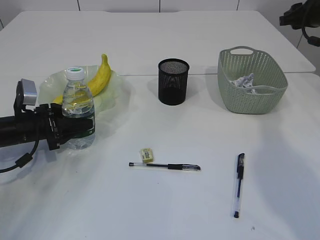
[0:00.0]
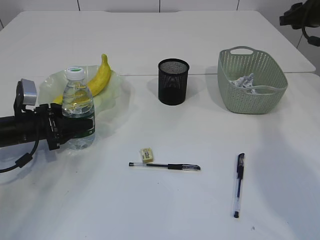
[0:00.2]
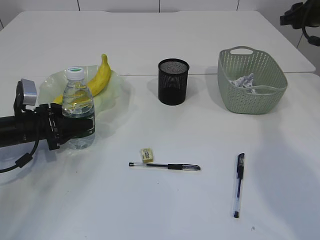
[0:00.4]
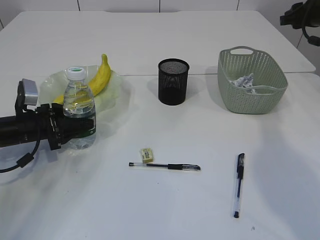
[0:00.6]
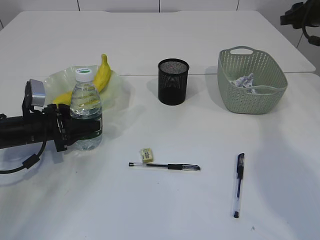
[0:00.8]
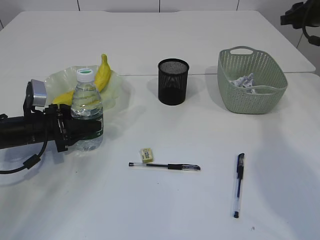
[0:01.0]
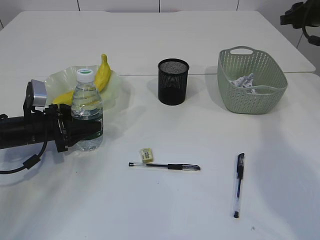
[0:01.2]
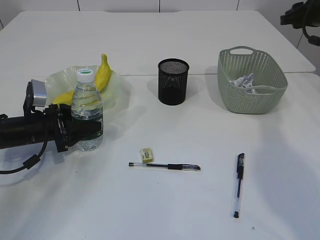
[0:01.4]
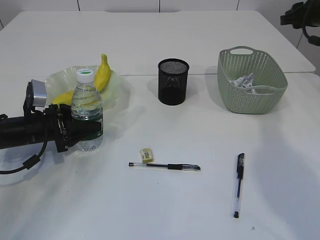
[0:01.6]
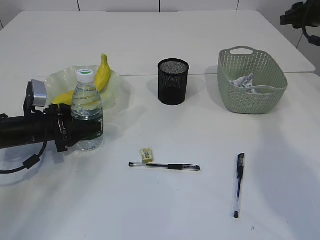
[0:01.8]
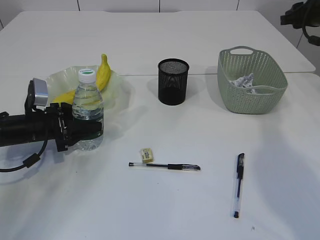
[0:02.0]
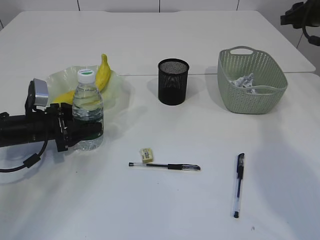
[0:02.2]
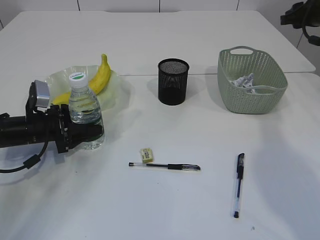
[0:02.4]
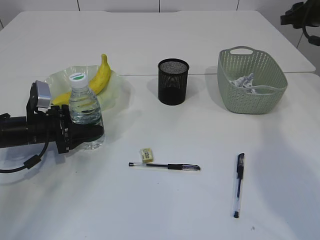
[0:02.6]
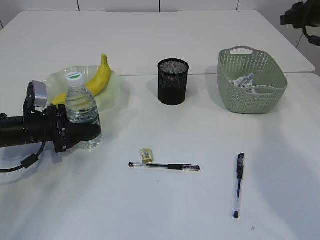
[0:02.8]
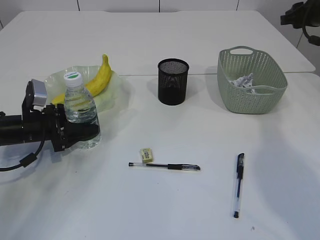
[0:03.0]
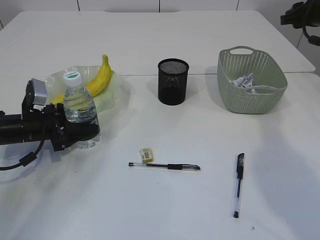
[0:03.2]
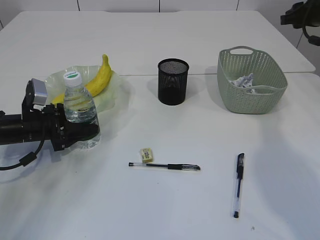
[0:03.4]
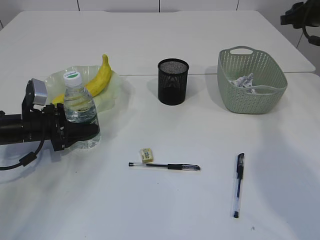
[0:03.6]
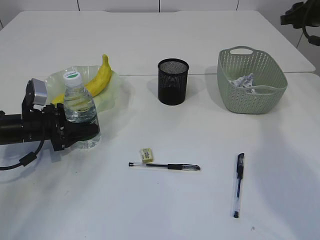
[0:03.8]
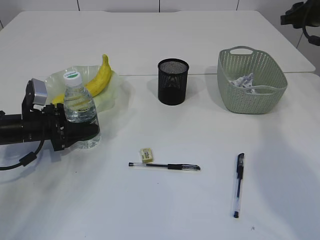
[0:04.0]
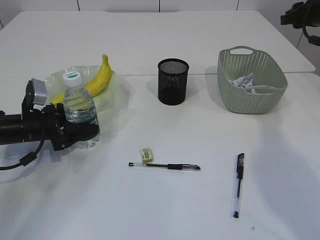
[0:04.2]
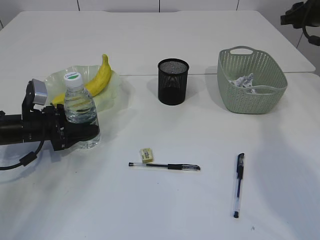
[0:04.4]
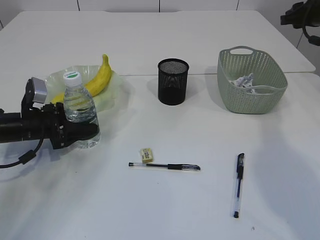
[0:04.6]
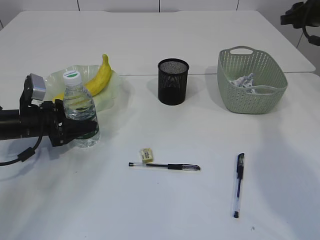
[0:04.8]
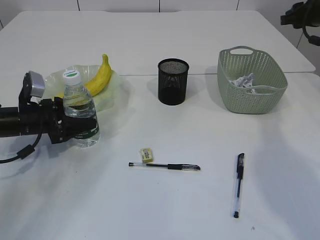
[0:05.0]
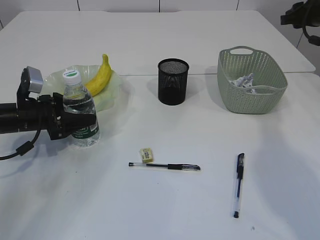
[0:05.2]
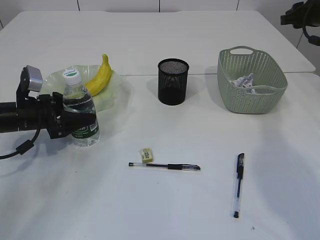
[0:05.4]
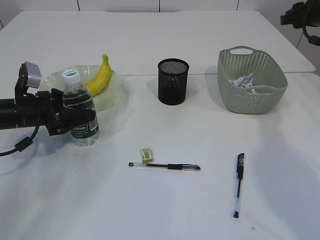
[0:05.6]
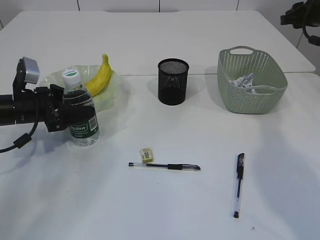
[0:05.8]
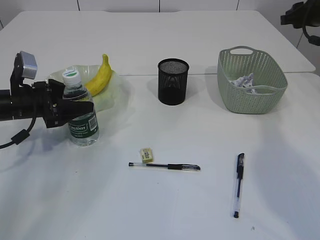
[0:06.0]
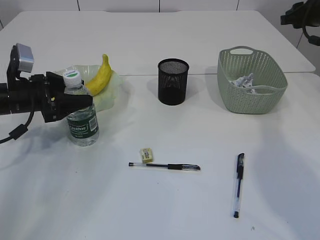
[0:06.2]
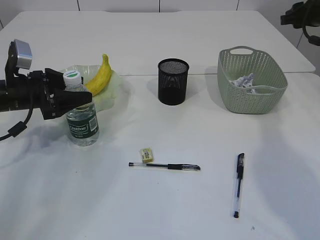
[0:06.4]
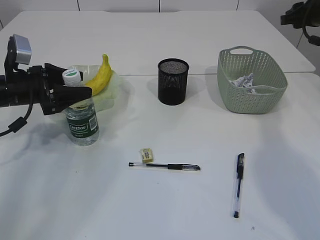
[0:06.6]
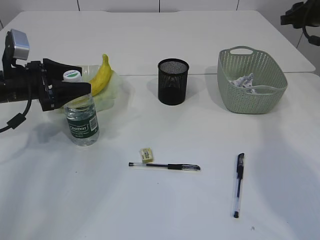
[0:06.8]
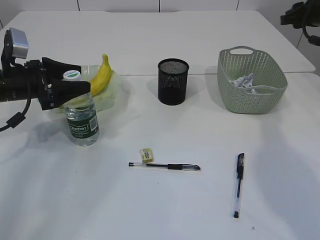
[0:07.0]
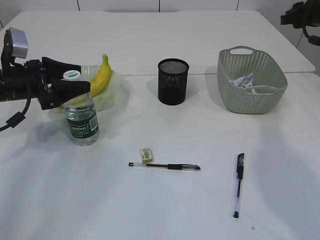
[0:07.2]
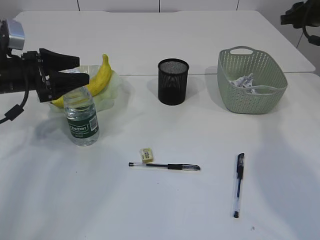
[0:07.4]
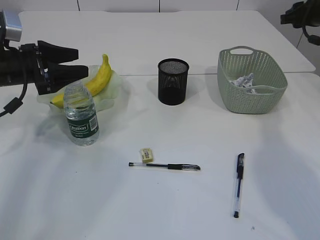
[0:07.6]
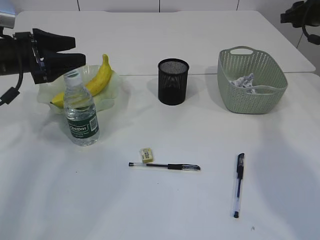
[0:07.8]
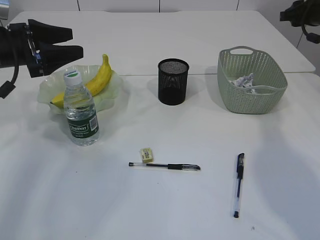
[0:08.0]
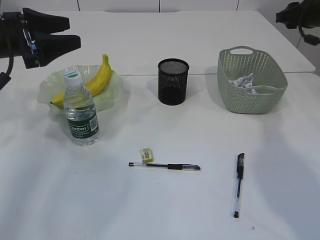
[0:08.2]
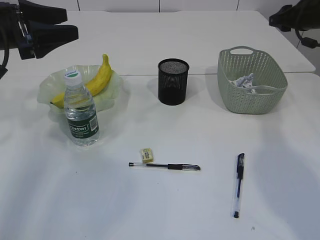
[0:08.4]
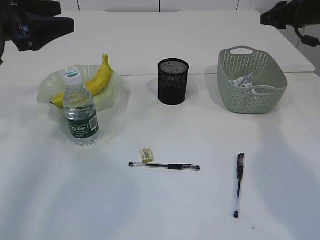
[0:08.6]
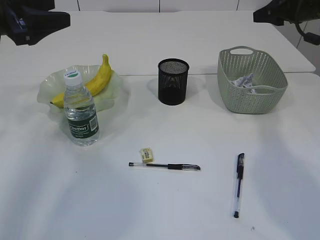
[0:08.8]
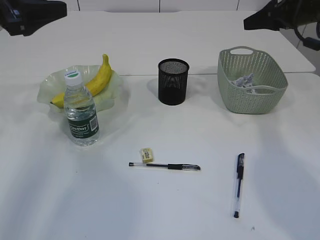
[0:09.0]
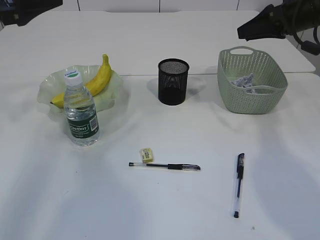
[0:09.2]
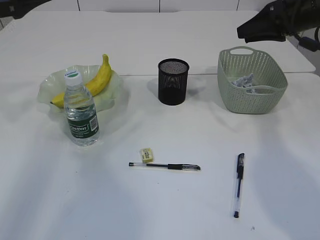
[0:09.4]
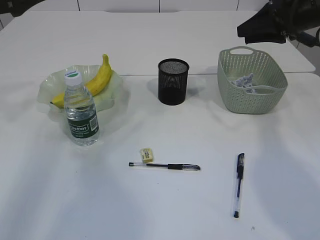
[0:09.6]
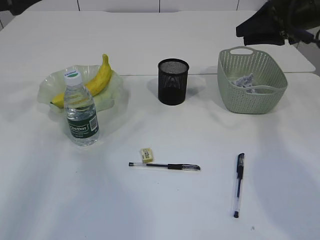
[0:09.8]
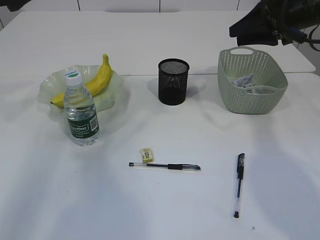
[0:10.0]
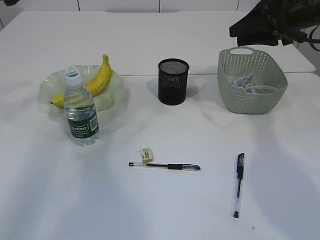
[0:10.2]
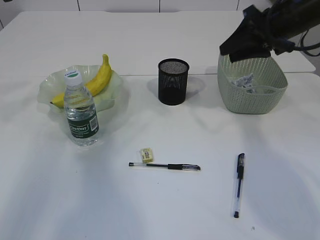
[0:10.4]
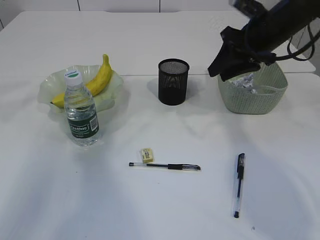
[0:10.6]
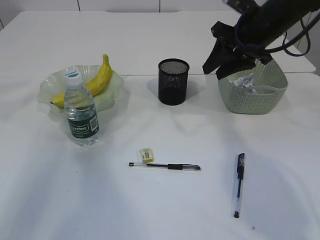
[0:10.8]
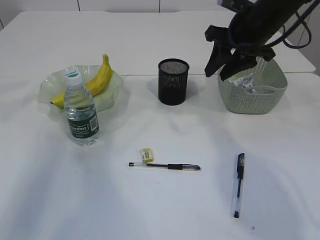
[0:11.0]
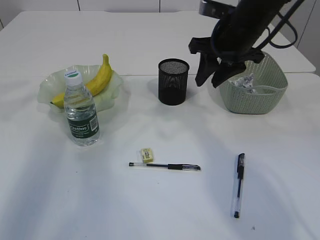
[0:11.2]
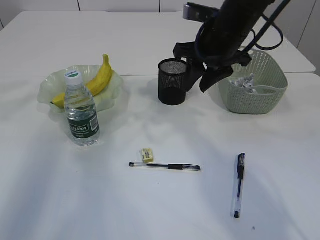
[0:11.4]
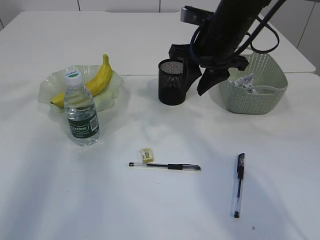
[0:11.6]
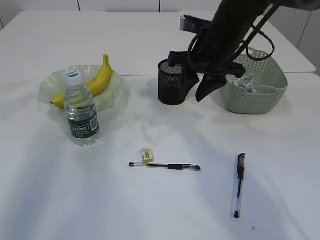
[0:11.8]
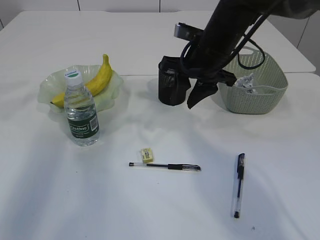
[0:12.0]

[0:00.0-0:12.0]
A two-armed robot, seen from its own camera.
Step, 0:00.0 to 0:07.8: Place the bottle.
0:00.0 to 0:01.6: There are only small adjustments of the grippers.
0:01.6 to 0:04.4: Both grippers stay put.
0:04.4 to 0:06.0: The left gripper is displaced upward by roughly 5 cm.
0:06.0 to 0:07.6: The left gripper moves upward, some 5 cm.
0:07.6 to 0:09.0: The left gripper shifts approximately 10 cm upward. Meanwhile the right gripper travels to the left by approximately 5 cm.
0:09.0 to 0:10.4: The left gripper moves upward, roughly 5 cm. Meanwhile the right gripper travels to the left by approximately 5 cm.
0:10.4 to 0:12.0: The right gripper heads to the left, covering some 15 cm.

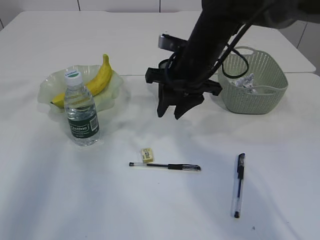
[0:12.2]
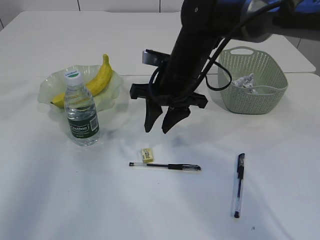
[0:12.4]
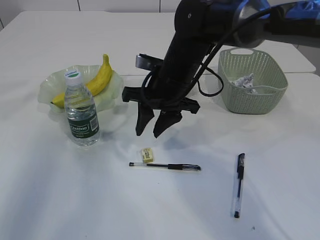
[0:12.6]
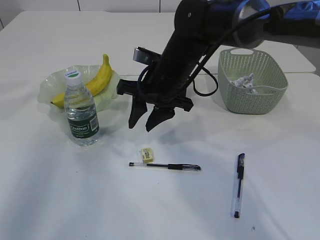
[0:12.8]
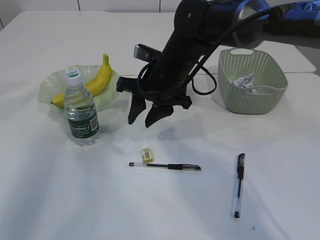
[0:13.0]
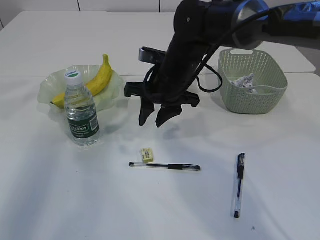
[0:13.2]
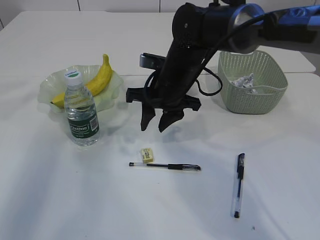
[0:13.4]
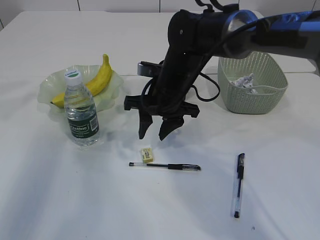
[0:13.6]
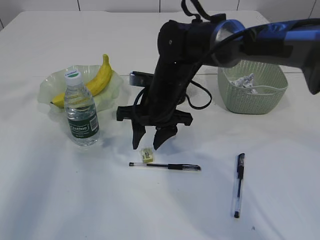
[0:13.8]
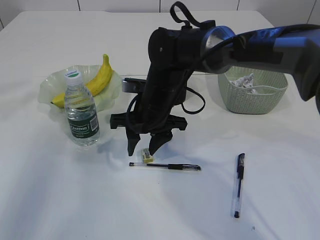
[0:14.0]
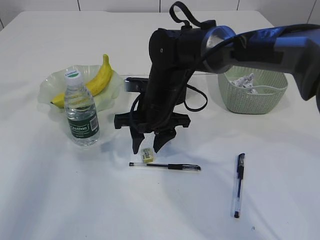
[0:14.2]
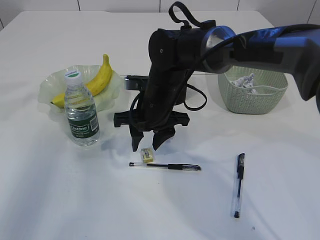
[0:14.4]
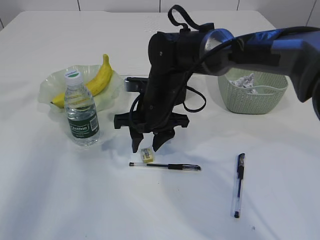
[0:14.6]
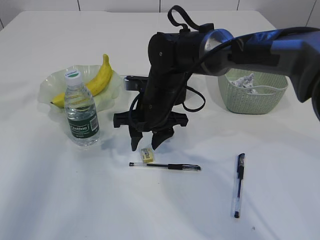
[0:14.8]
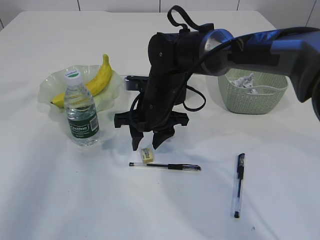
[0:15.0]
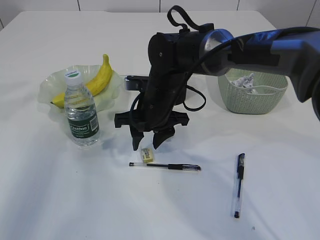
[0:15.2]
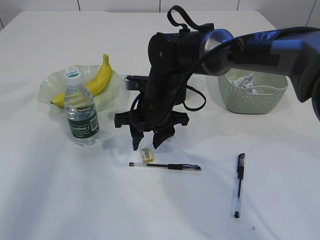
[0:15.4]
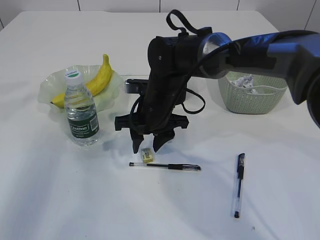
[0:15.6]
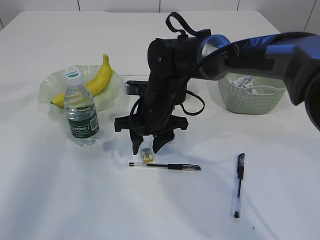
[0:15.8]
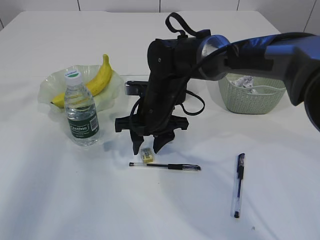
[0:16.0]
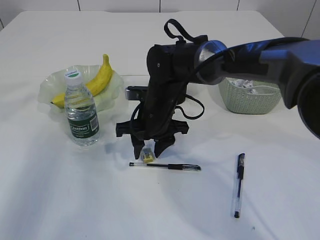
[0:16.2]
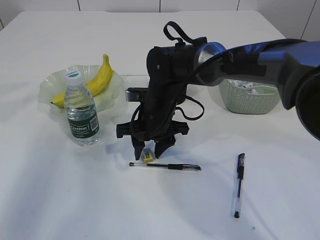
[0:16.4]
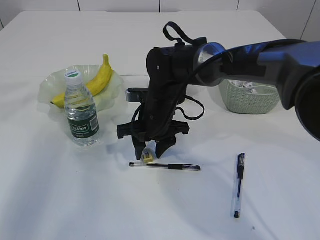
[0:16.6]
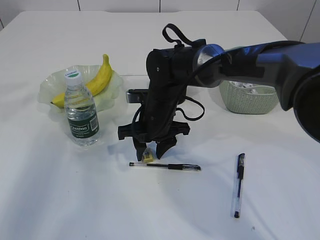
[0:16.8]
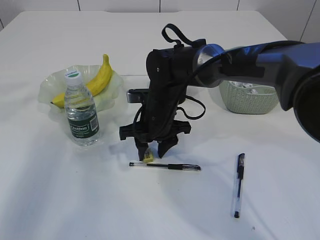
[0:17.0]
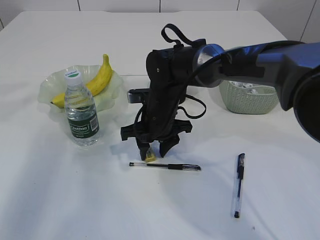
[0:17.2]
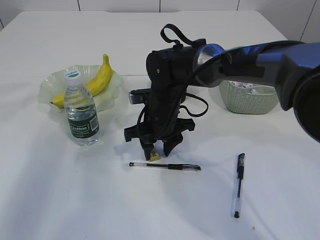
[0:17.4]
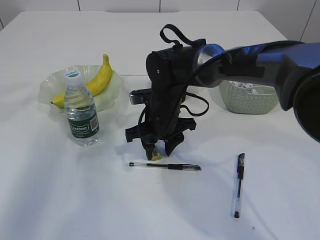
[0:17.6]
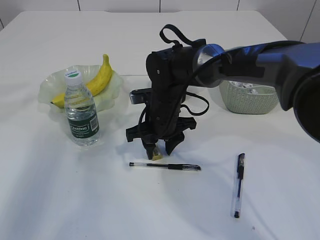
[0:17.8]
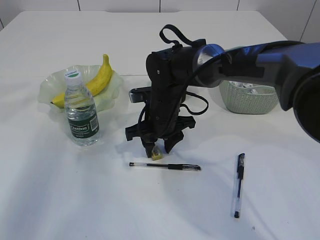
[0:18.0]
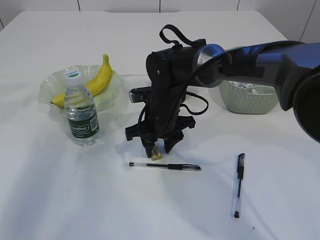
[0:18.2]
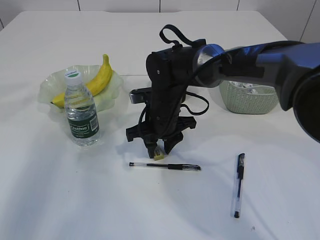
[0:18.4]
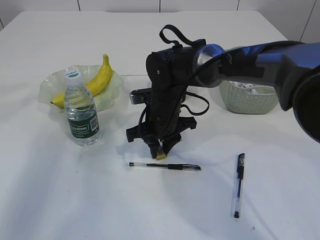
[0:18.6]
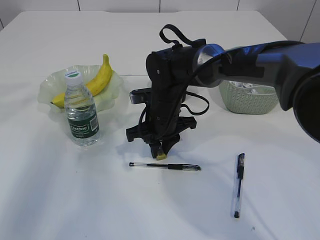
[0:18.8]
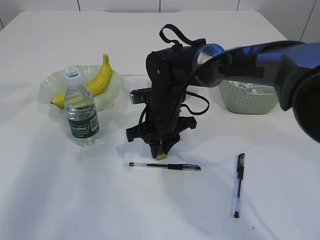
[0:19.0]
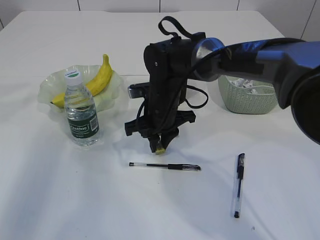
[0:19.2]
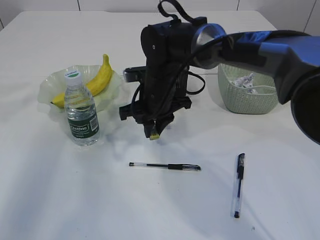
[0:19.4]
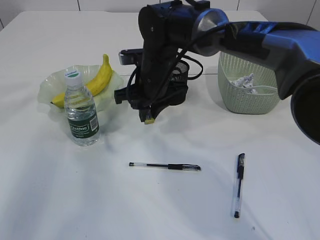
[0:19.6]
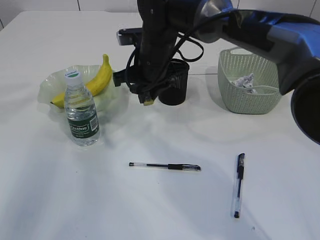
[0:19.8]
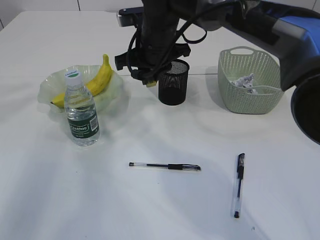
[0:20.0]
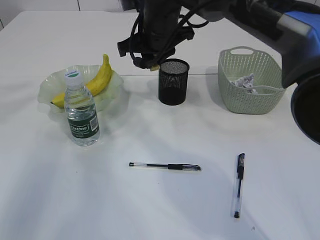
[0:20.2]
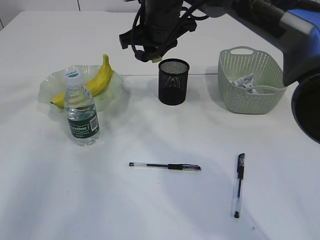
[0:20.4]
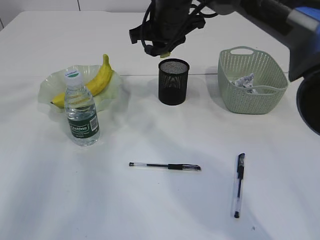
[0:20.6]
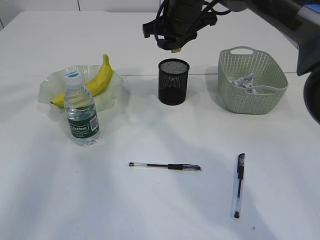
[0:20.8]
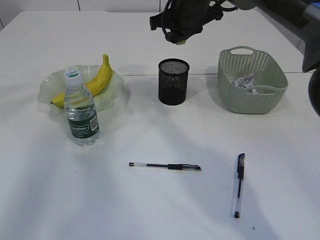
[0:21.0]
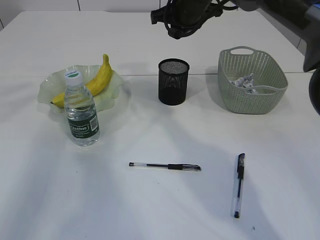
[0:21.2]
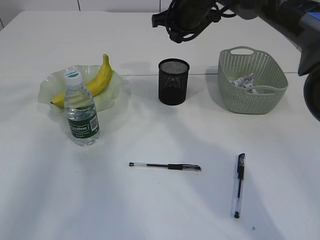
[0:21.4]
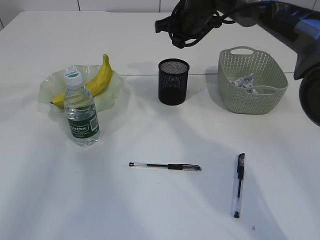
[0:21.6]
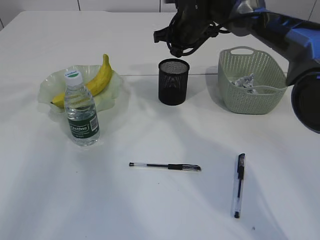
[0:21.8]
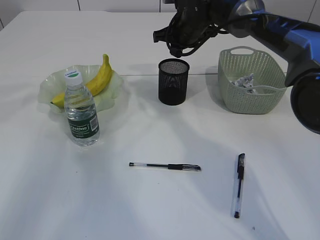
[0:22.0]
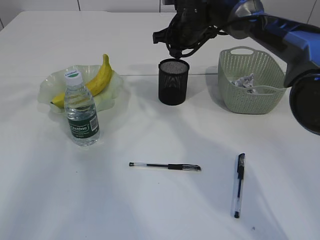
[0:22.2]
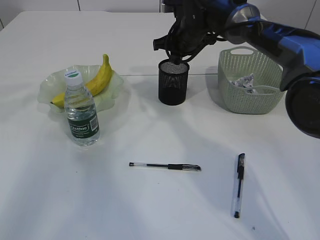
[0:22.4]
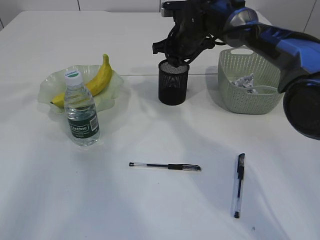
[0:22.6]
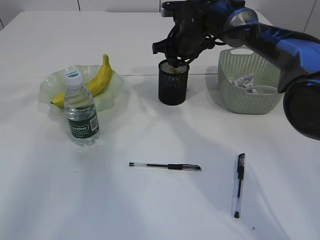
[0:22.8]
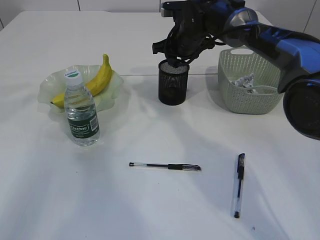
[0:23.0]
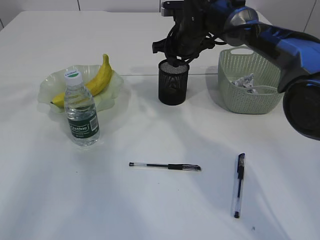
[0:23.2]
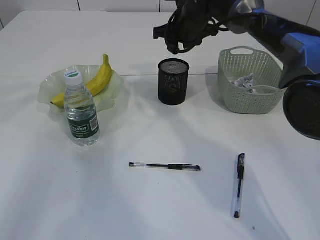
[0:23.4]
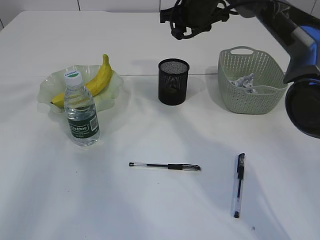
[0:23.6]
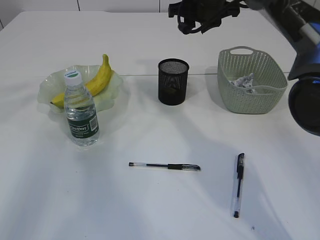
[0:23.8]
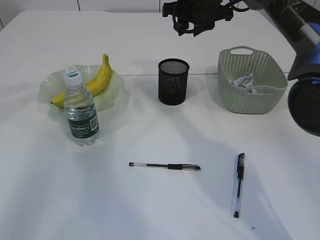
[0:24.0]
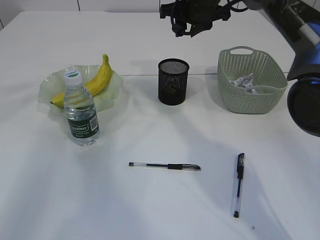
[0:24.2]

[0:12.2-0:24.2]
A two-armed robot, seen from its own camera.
Step, 0:12.2 to 0:19.4: Pick up the eraser.
Step, 0:19.6 to 0:23.2: Place the eraser into the pen holder.
0:12.2 to 0:13.8: The right gripper moves downward and to the left, about 10 cm.
0:13.8 to 0:18.2: The grippers make only small movements.
0:18.2 to 0:19.8: The right gripper shifts roughly 10 cm upward, and closes up.
0:19.8 to 0:21.2: The right gripper heads to the right, upward and forward, covering about 10 cm.
0:21.2 to 0:22.6: The right gripper heads downward, covering some 10 cm.
0:22.6 to 0:24.2: The right gripper shifts approximately 10 cm upward.
